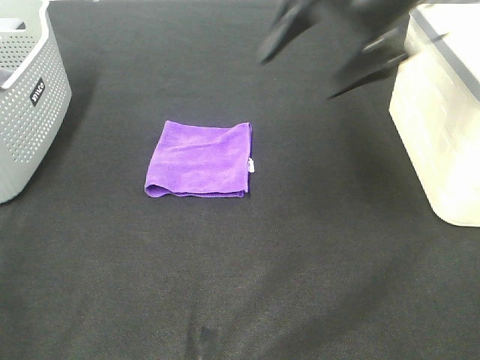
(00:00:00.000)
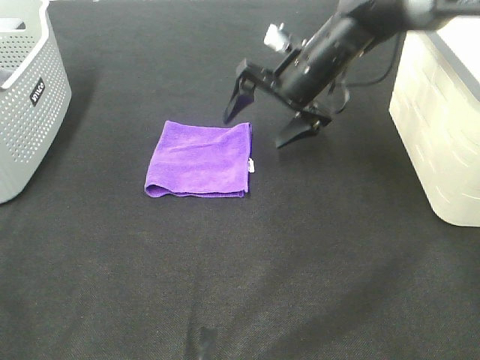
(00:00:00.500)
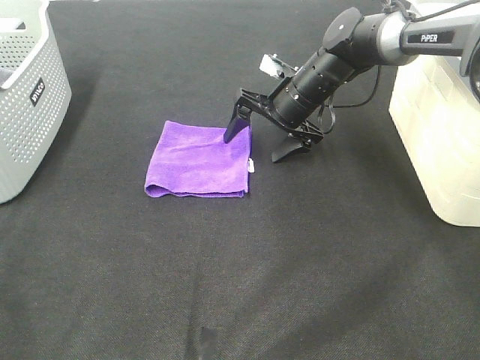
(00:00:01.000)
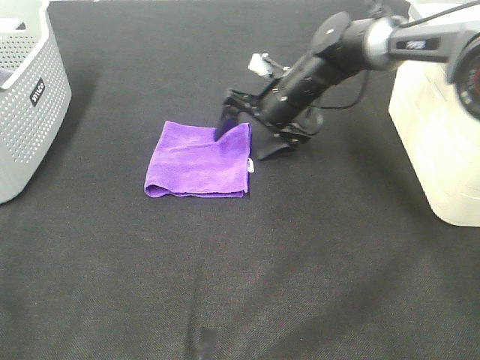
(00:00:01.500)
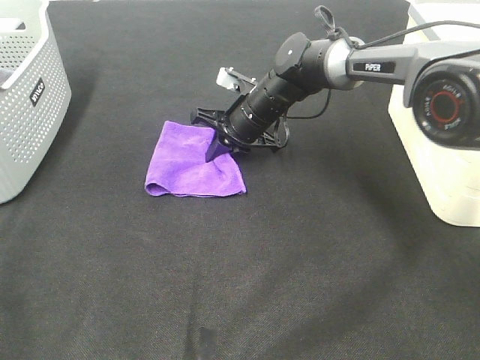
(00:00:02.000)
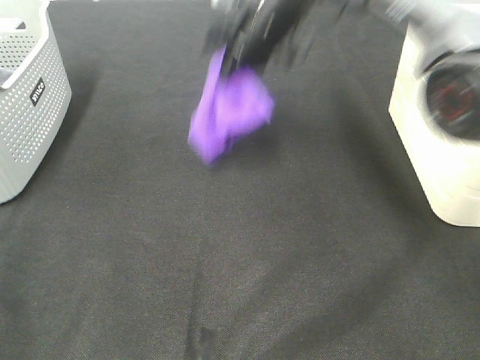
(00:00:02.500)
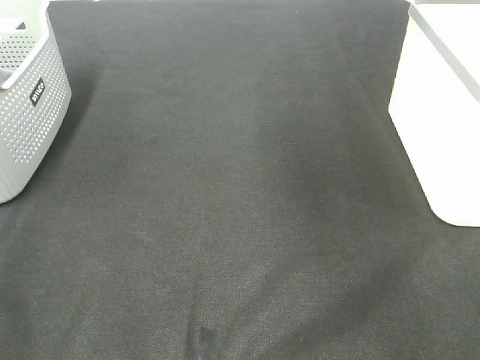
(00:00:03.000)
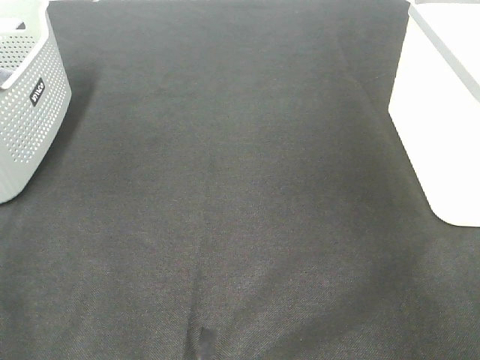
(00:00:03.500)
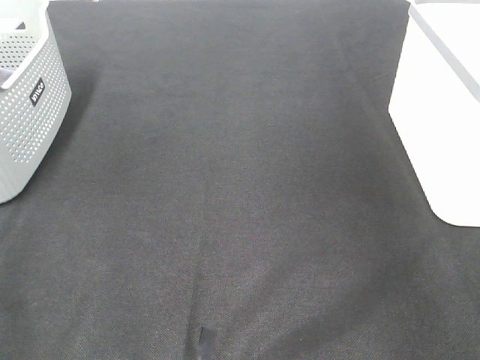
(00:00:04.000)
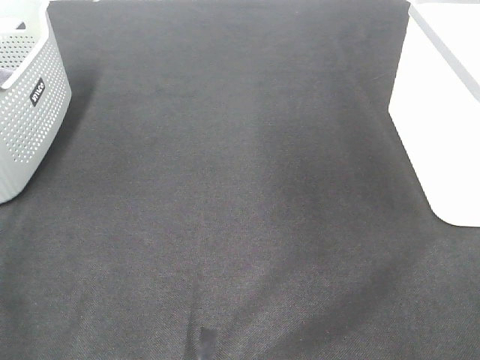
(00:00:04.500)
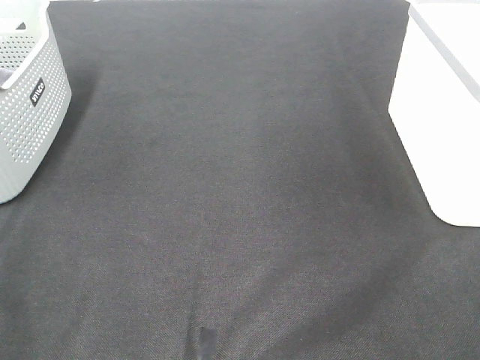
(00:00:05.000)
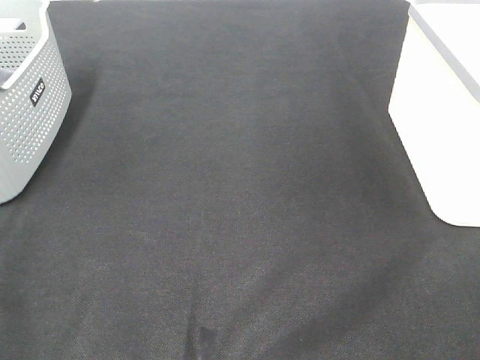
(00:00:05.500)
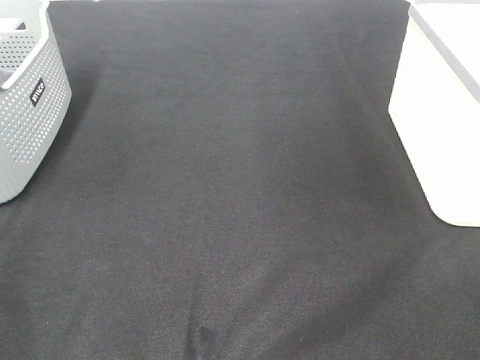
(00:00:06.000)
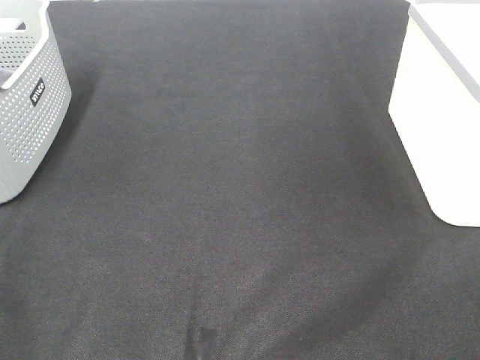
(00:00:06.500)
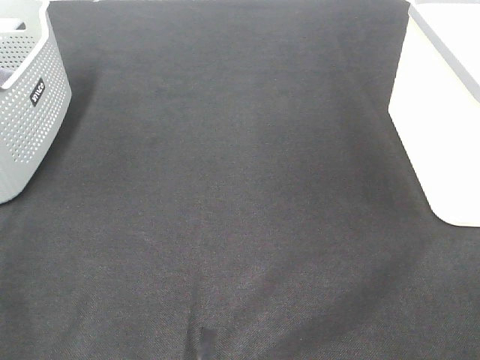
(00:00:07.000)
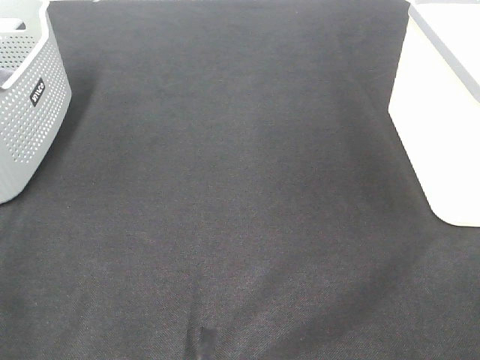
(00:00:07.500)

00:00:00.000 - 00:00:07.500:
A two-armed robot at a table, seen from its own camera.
Step, 00:00:00.000 - 00:00:02.000: Right hand: grab the folded purple towel.
Step, 00:00:02.500 - 00:00:03.500: Right hand: place the purple towel in right basket.
00:00:00.000 - 00:00:02.000: The right gripper goes approximately 25 cm downward, to the left and forward, and closes up.
00:00:02.000 - 00:00:04.000: The right gripper travels to the right and upward by roughly 50 cm, and opens its fingers.

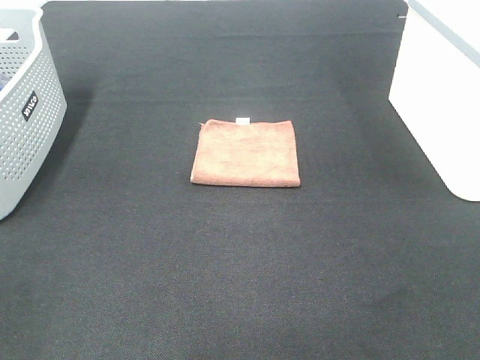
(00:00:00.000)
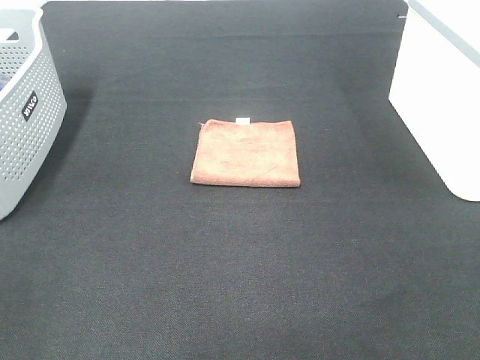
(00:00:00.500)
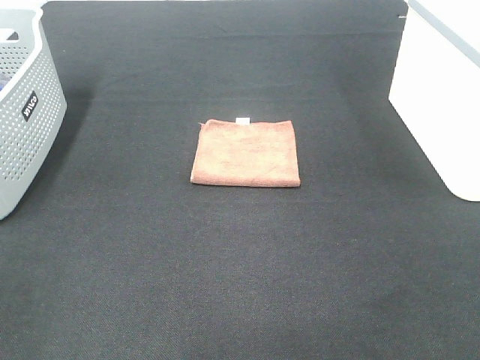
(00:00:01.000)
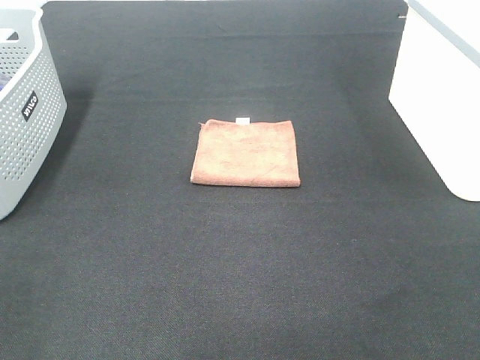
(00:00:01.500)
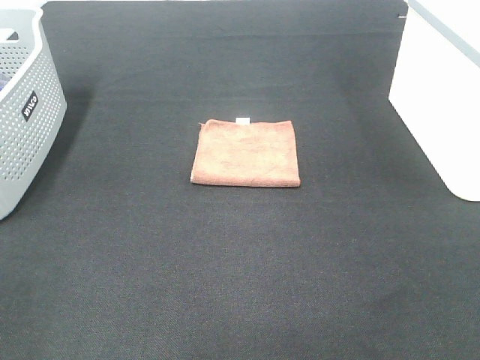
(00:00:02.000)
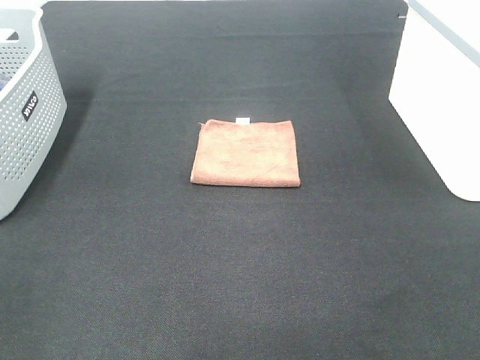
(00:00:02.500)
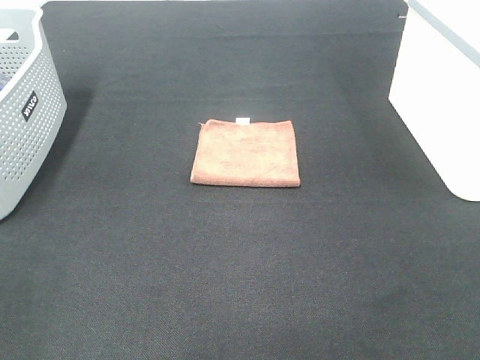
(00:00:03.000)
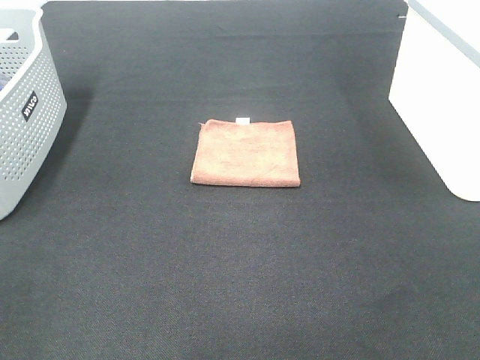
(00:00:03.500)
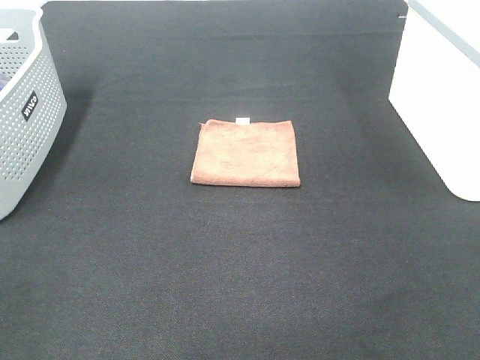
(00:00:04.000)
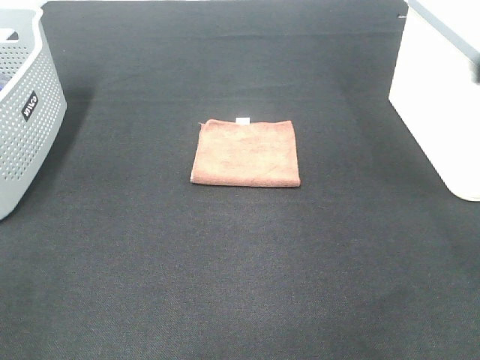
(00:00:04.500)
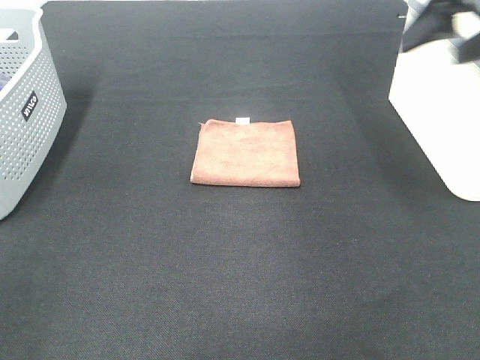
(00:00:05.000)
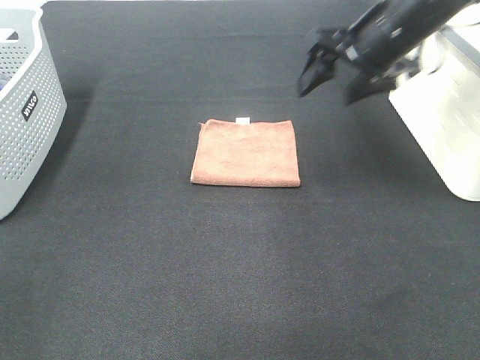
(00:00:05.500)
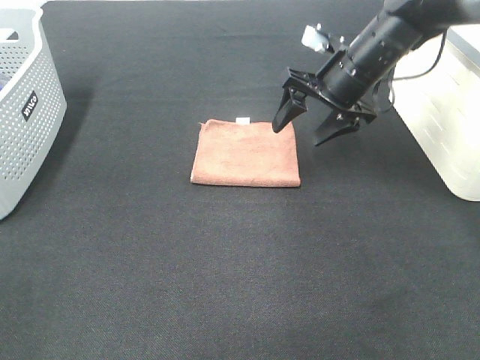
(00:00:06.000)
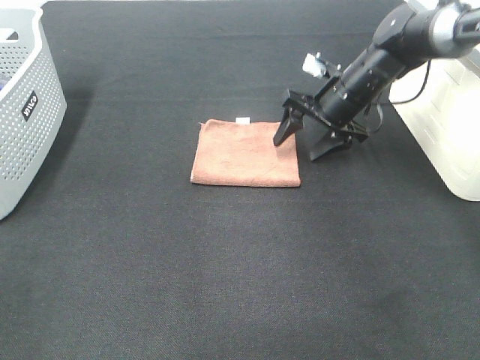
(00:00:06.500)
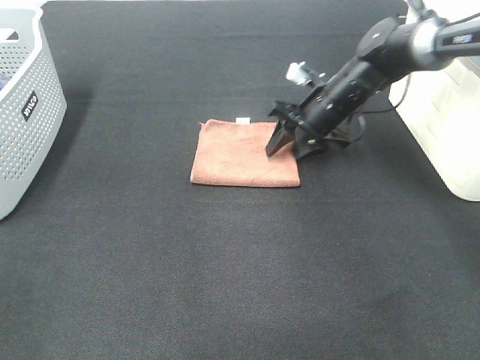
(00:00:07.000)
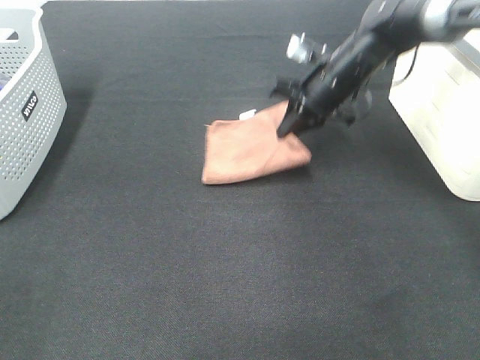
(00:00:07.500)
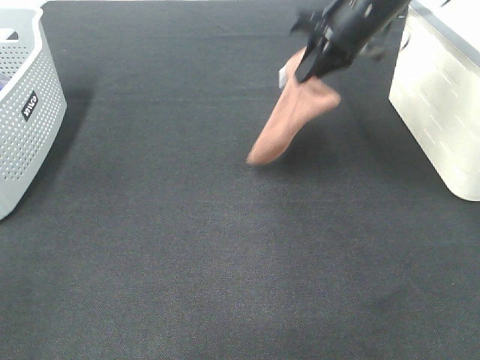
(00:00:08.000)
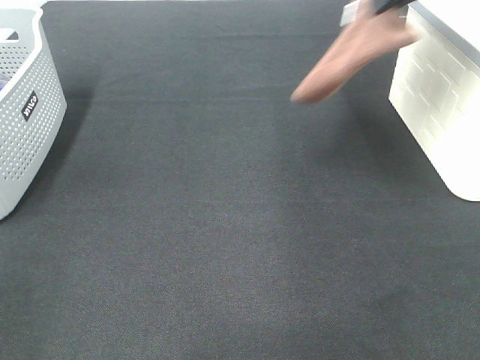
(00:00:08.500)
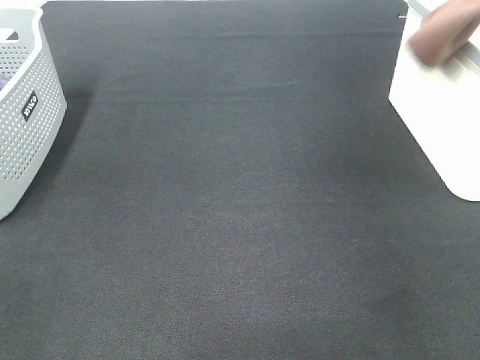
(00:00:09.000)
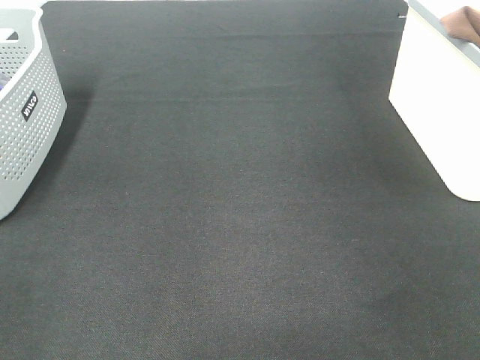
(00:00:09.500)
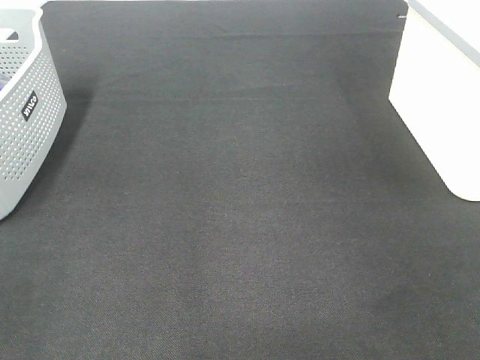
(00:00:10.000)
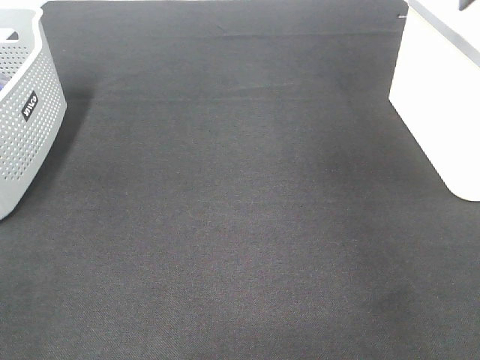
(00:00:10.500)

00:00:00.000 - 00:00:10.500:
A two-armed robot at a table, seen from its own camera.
Step, 00:00:00.000 - 00:00:07.000: Right hand: grab the folded brown towel.
Step, 00:00:07.500 - 00:00:09.500: Right hand: place the brown towel in right basket.
00:00:00.000 - 00:00:02.000: Both grippers stay put.
00:00:04.000 - 00:00:06.500: The right gripper shifts roughly 50 cm forward and downward.
00:00:06.500 - 00:00:08.500: The right gripper goes roughly 25 cm upward, and closes.
00:00:08.500 - 00:00:10.500: The right gripper travels to the right by some 10 cm, and opens up.

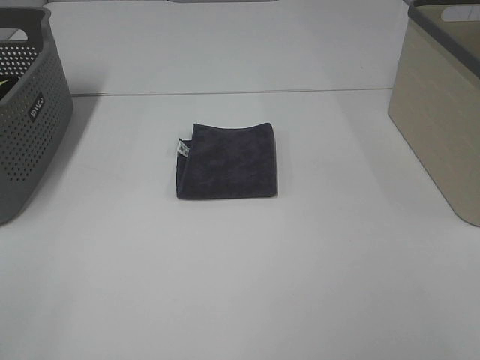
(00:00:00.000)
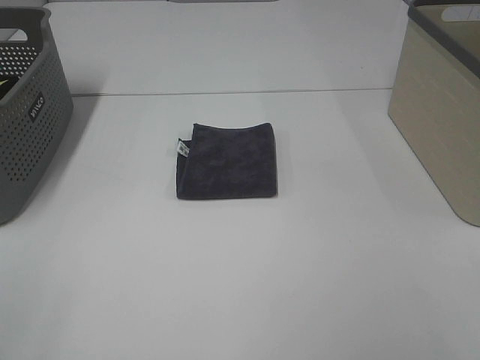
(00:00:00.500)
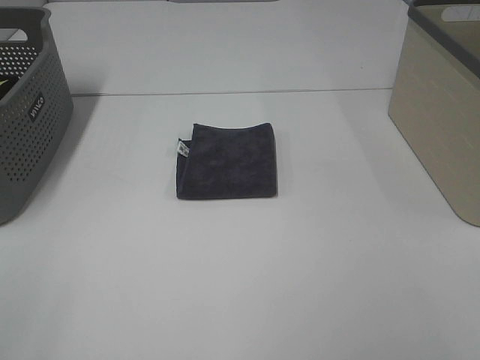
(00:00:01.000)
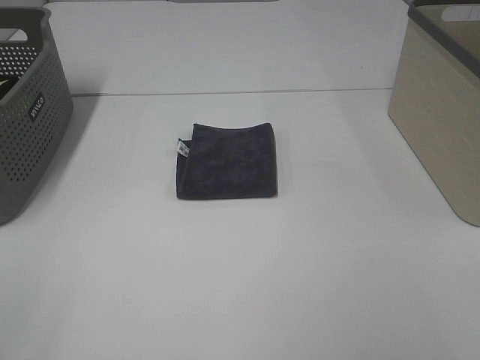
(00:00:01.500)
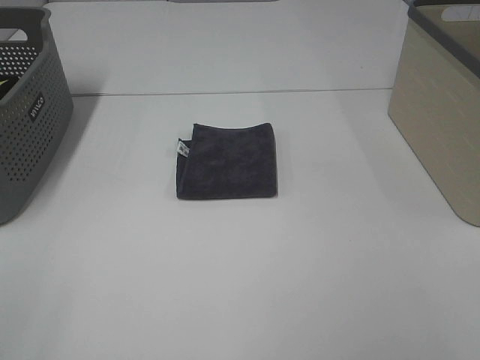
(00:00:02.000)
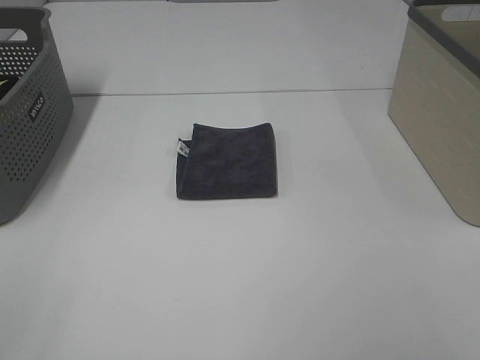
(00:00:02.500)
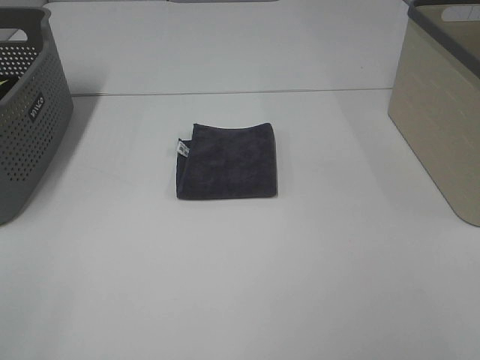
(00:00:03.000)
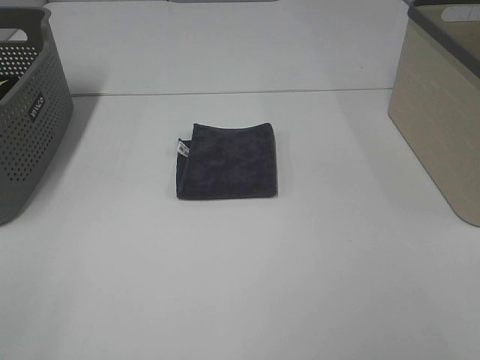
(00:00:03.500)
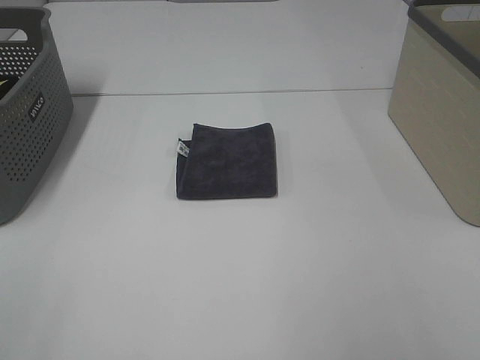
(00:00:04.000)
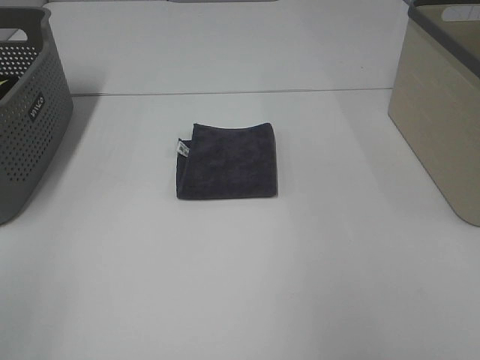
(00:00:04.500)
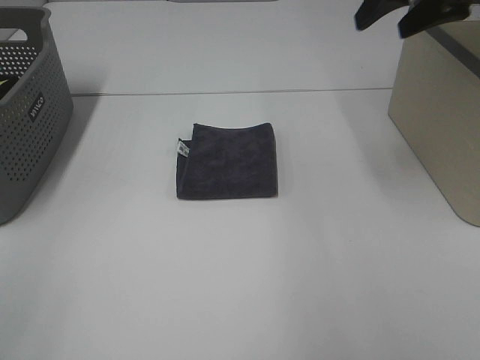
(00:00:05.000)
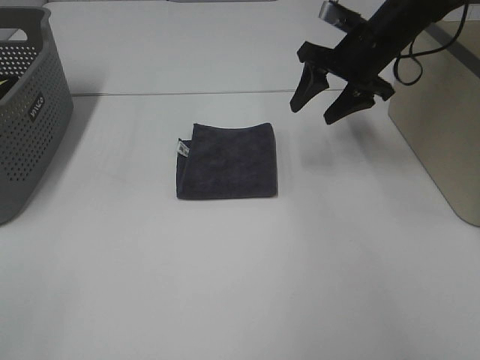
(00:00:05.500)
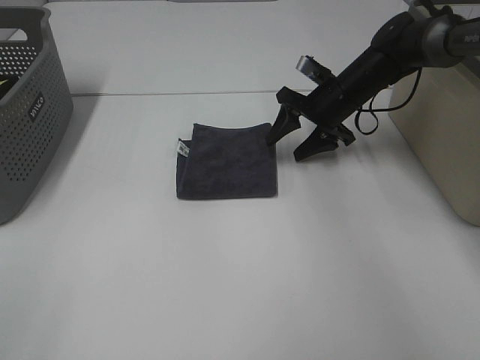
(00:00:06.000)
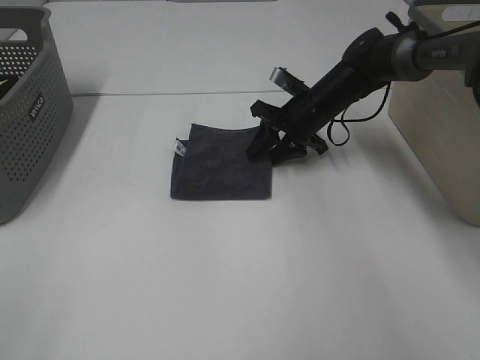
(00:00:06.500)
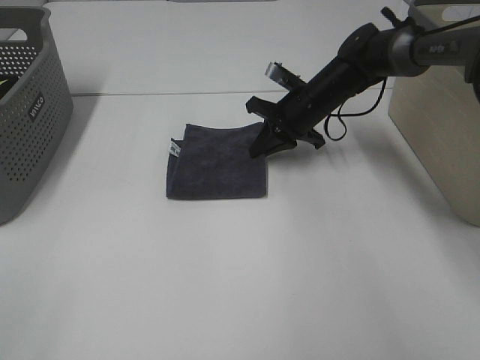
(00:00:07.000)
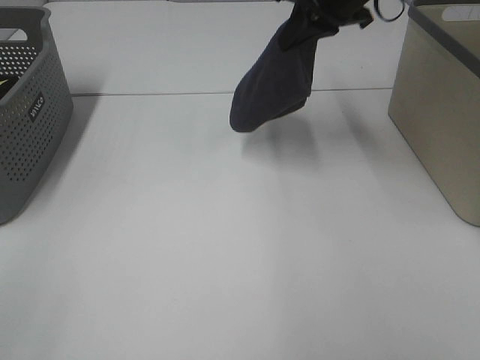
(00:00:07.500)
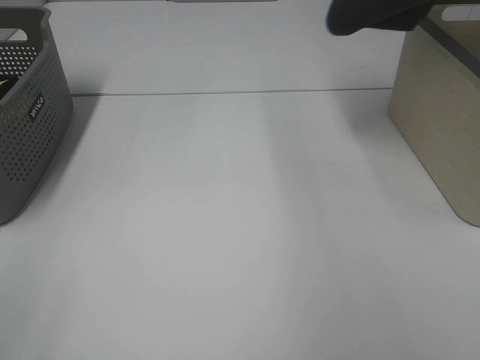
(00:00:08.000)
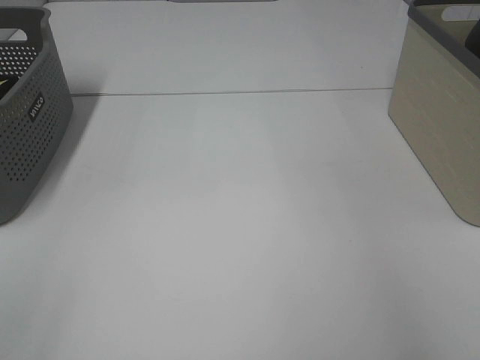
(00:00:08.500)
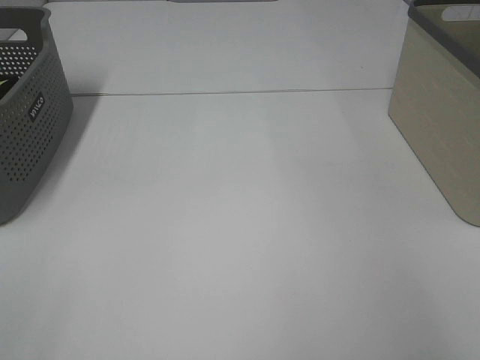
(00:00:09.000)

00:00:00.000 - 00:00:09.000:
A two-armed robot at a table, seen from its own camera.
Step, 00:00:00.000 - 00:00:06.500: Right hand: grab the folded grey towel.
00:00:00.000 - 00:00:02.000: Both grippers stay about where they are.
00:00:04.500 - 00:00:07.000: The right gripper travels downward, forward and to the left by about 40 cm, and closes its fingers.
00:00:07.000 - 00:00:09.000: The right gripper heads to the right and upward, covering roughly 35 cm.
